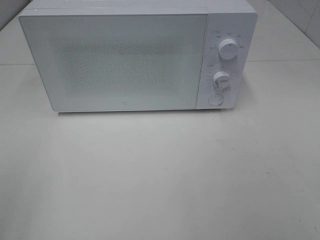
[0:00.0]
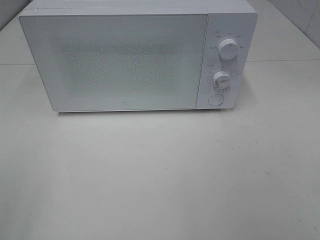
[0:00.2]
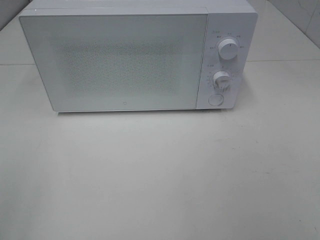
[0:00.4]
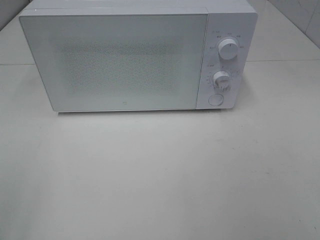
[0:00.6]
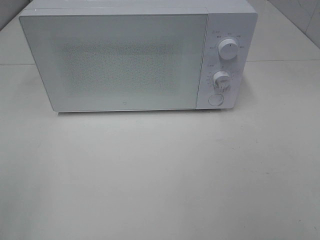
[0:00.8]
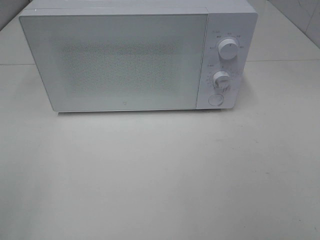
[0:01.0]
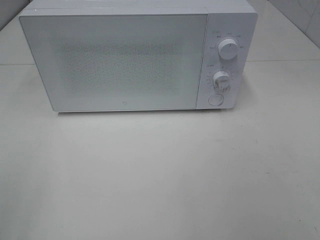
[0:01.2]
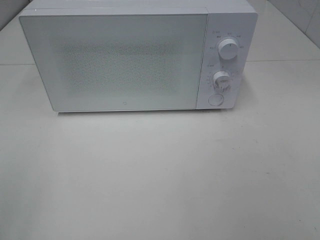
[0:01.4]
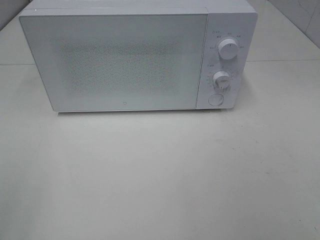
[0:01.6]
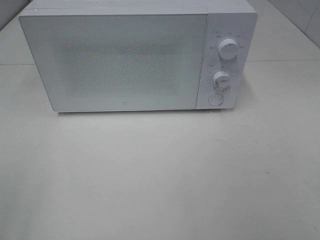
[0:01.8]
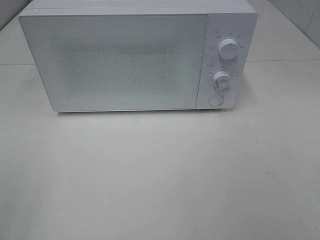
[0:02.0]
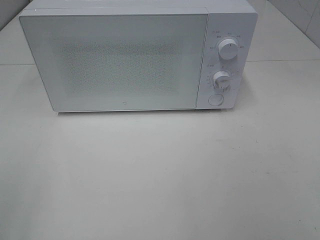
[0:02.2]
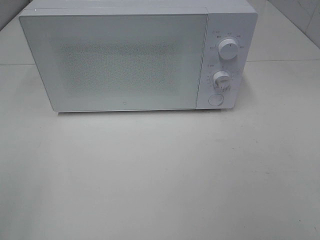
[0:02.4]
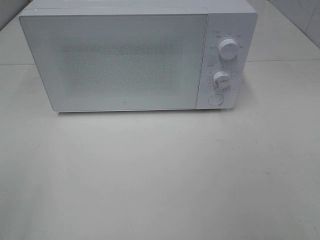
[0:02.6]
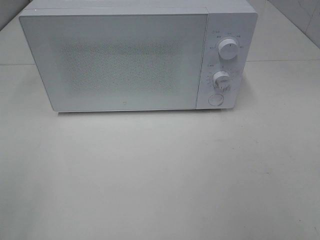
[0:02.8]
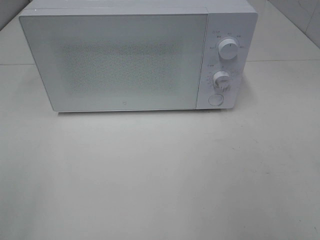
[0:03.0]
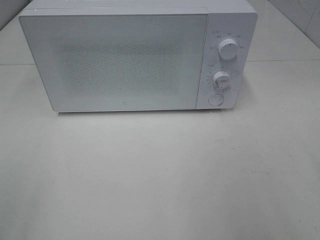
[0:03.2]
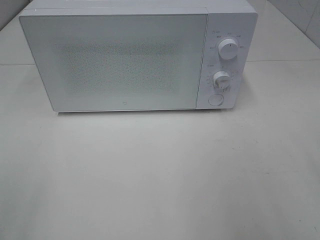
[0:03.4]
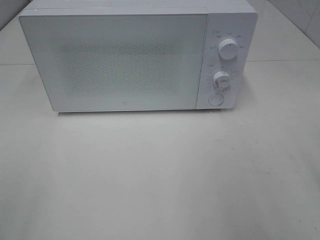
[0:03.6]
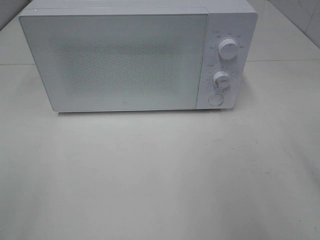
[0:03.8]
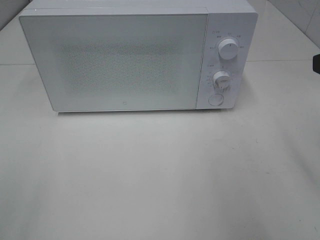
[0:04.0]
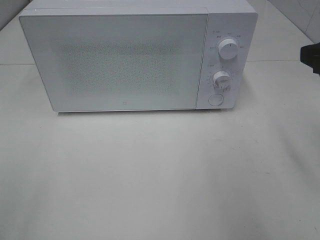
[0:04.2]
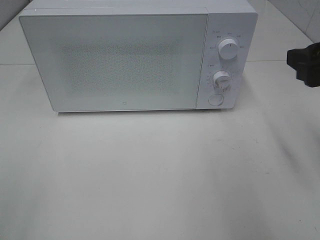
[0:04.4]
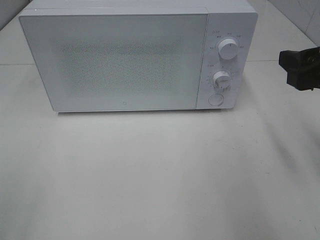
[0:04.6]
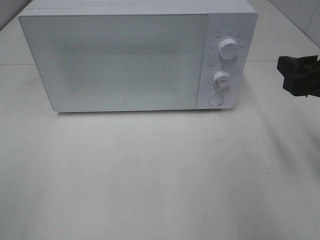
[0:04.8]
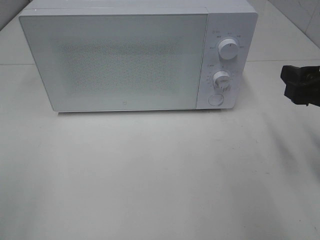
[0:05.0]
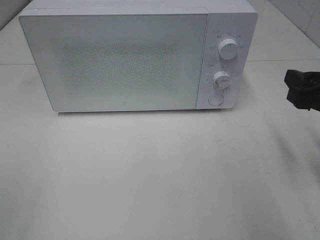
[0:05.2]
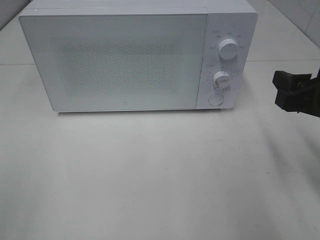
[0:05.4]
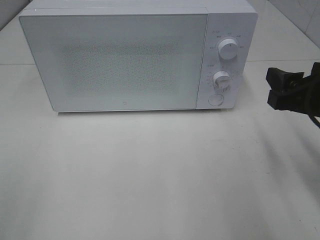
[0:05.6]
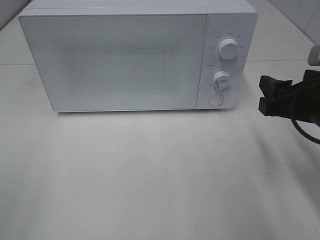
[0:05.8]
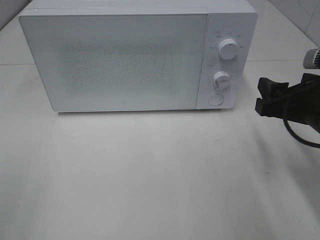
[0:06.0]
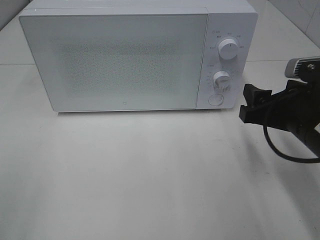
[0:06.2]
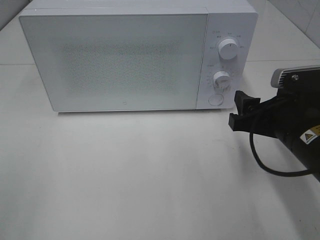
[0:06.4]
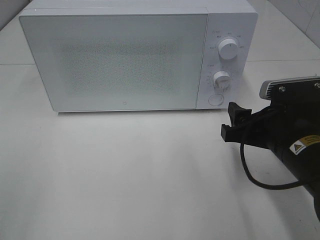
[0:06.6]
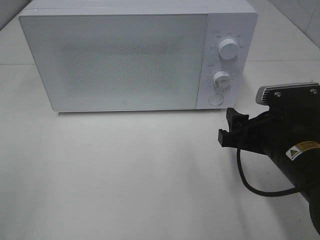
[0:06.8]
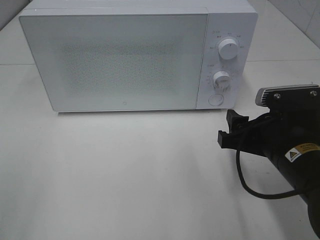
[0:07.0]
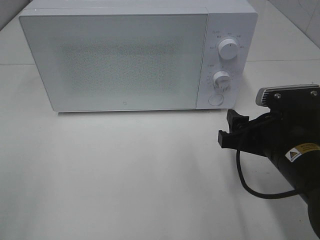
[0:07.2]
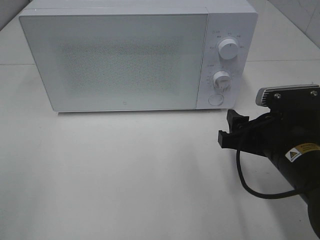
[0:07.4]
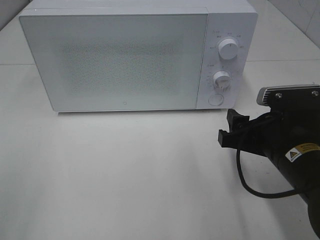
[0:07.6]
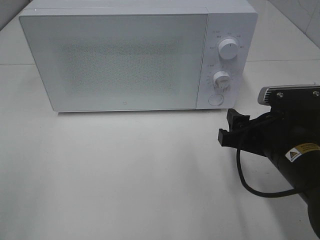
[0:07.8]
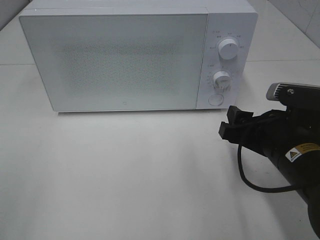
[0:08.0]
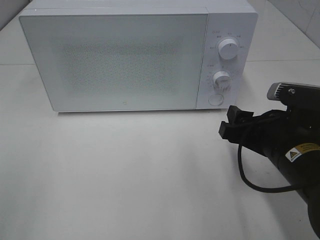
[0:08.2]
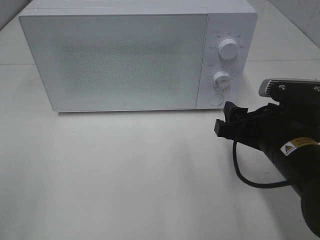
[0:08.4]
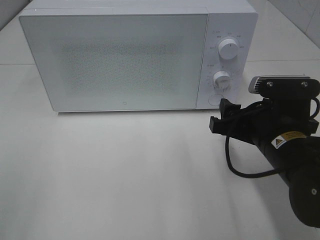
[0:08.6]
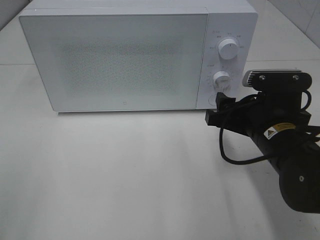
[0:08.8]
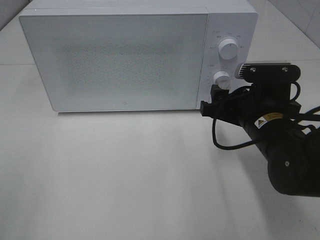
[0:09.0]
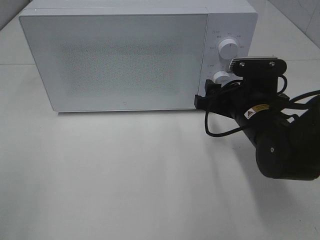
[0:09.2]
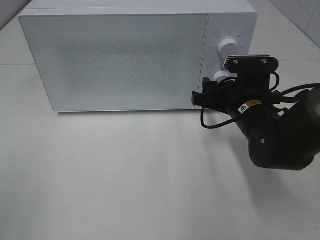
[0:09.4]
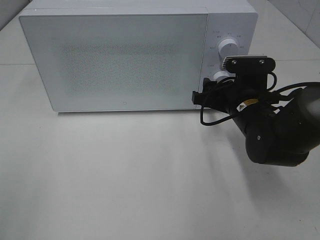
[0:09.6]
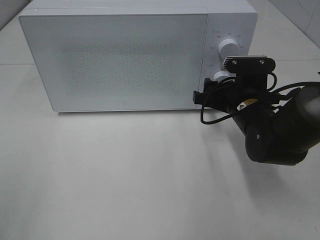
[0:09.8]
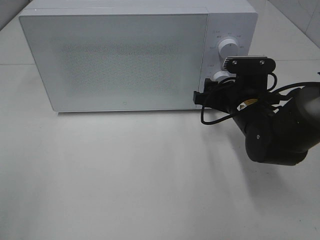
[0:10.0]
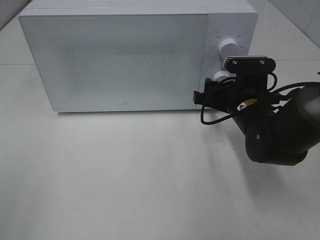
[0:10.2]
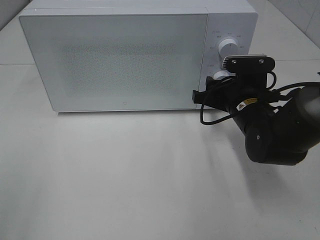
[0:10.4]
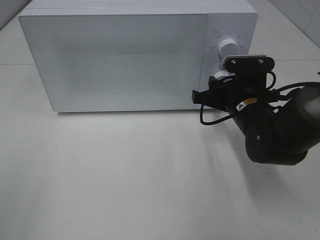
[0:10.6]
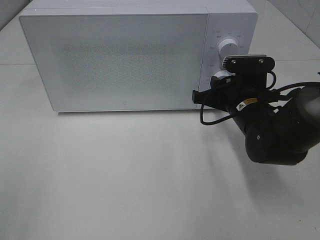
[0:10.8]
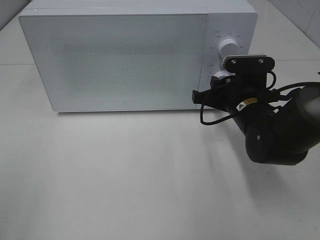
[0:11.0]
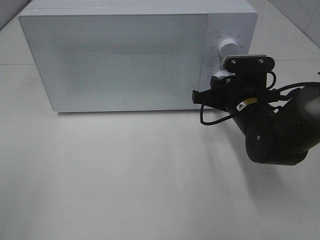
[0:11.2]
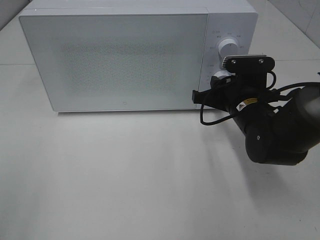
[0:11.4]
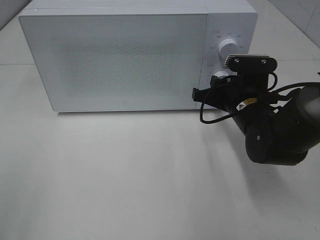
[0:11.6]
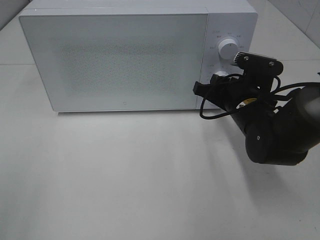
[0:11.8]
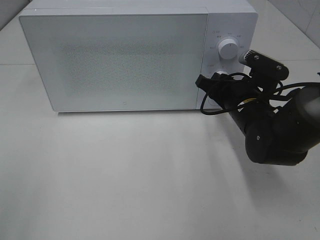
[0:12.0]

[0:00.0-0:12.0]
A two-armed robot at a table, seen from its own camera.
Task of the whole recording: Heat Sandwich.
0:03.0 to 0:04.4: The right gripper travels forward by roughly 15 cm.
0:04.4 to 0:06.0: The right gripper is displaced downward by about 10 cm.
0:06.0 to 0:07.6: The right gripper shifts about 5 cm to the left.
0:07.6 to 0:09.0: The right gripper moves forward, roughly 5 cm.
0:09.0 to 0:10.4: The right gripper heads forward, covering approximately 5 cm.

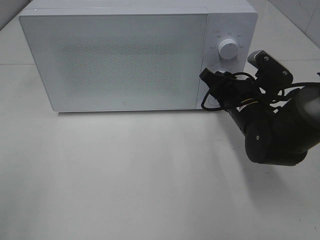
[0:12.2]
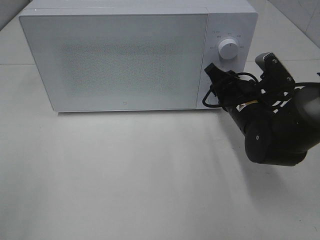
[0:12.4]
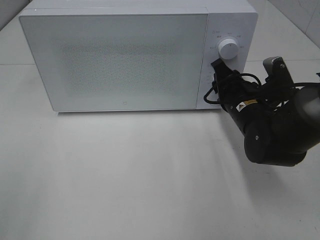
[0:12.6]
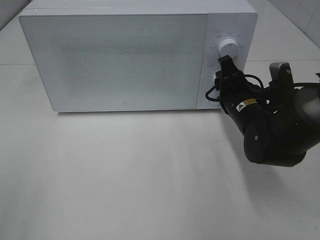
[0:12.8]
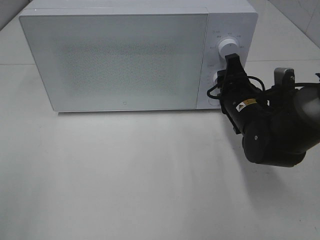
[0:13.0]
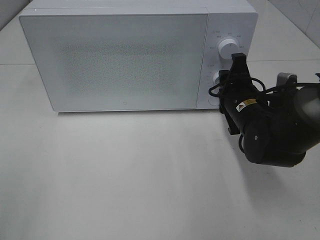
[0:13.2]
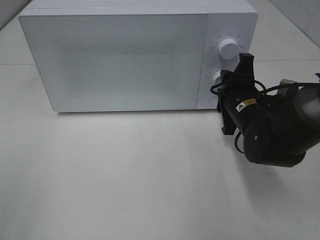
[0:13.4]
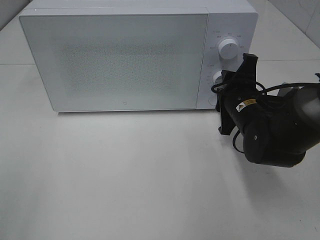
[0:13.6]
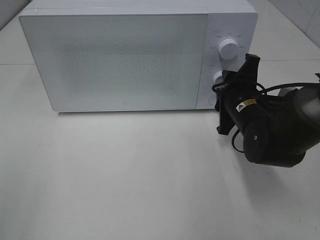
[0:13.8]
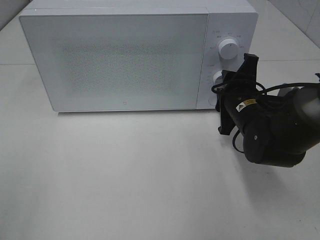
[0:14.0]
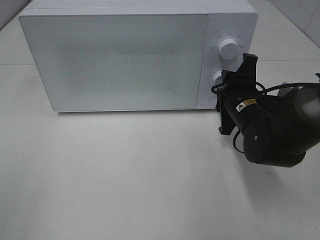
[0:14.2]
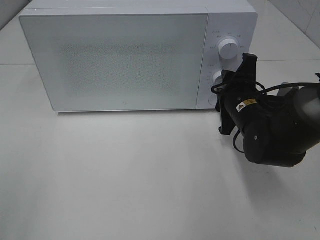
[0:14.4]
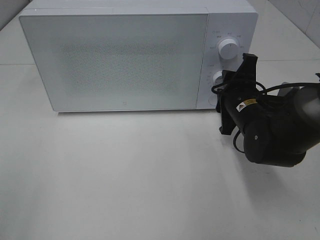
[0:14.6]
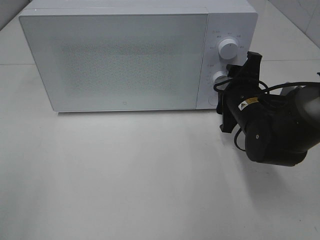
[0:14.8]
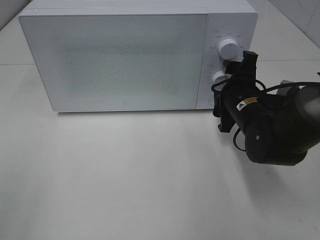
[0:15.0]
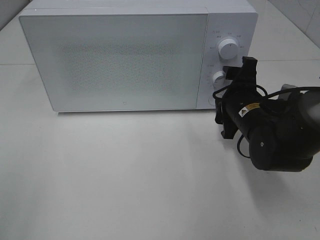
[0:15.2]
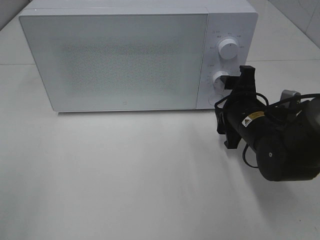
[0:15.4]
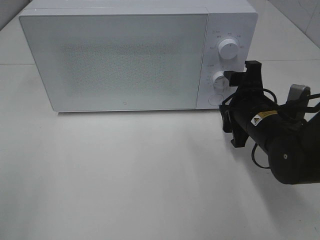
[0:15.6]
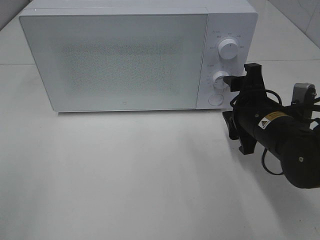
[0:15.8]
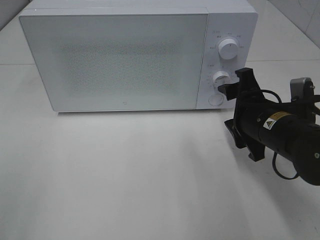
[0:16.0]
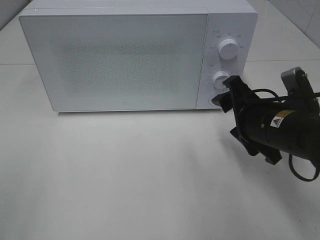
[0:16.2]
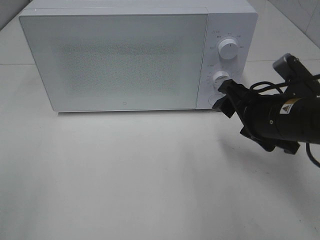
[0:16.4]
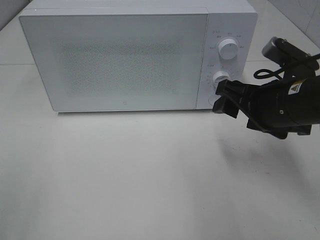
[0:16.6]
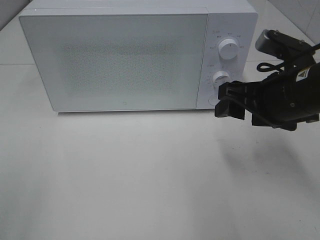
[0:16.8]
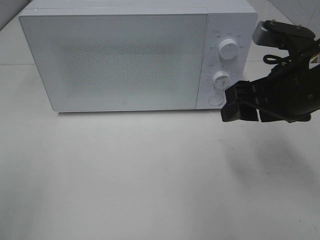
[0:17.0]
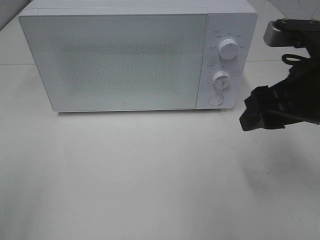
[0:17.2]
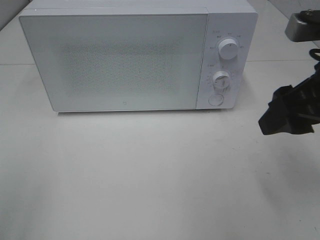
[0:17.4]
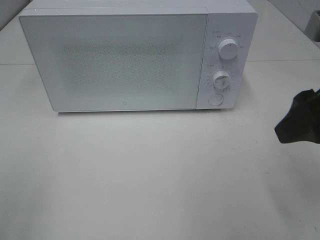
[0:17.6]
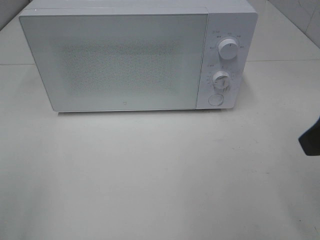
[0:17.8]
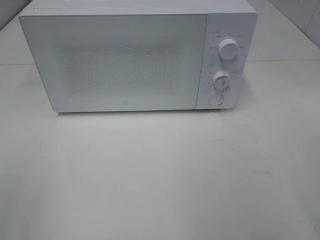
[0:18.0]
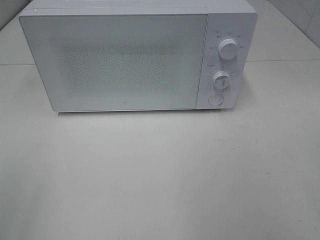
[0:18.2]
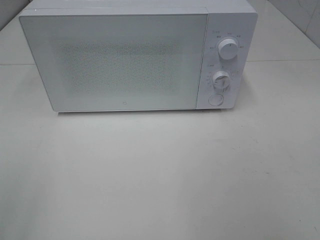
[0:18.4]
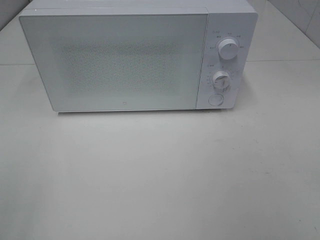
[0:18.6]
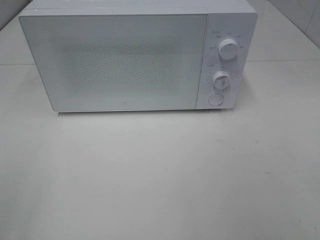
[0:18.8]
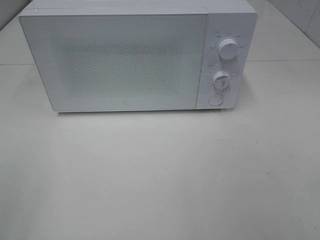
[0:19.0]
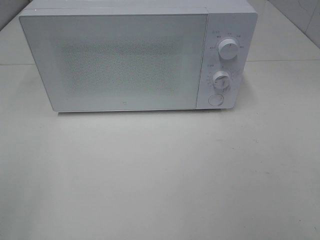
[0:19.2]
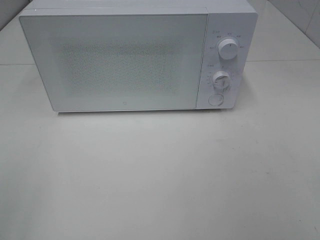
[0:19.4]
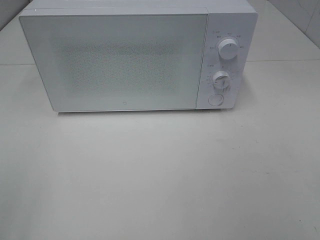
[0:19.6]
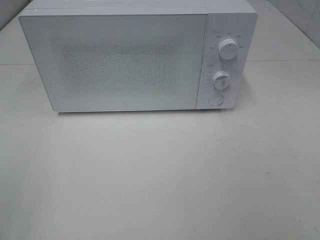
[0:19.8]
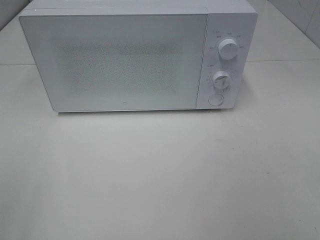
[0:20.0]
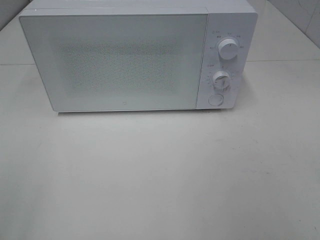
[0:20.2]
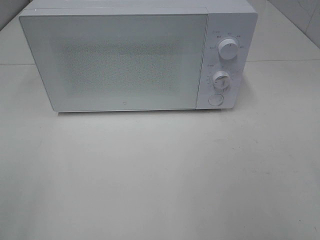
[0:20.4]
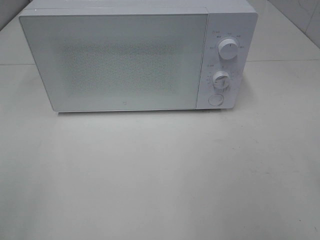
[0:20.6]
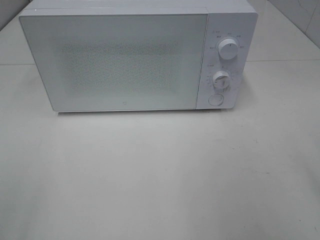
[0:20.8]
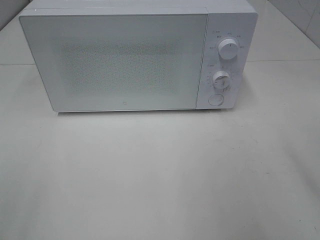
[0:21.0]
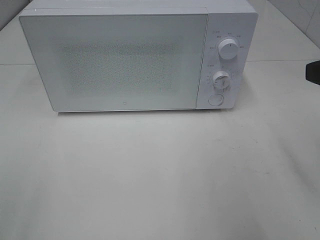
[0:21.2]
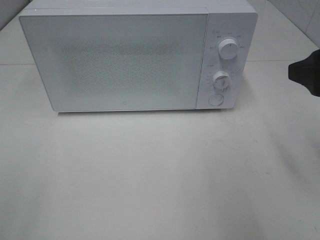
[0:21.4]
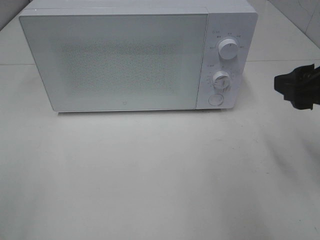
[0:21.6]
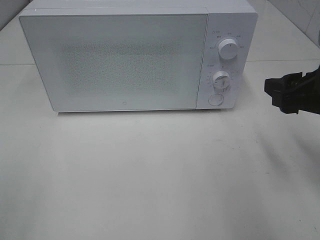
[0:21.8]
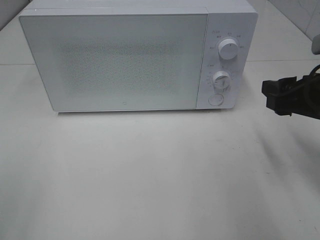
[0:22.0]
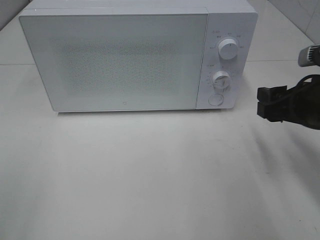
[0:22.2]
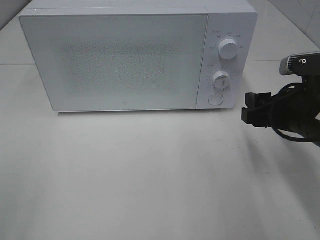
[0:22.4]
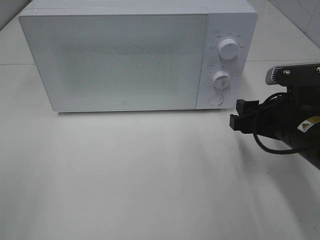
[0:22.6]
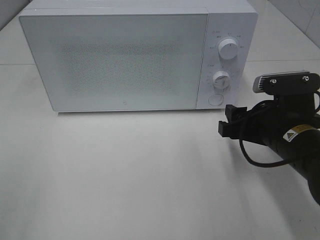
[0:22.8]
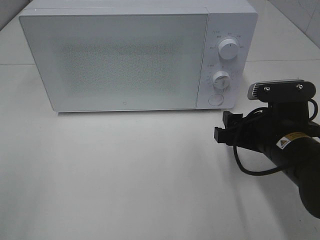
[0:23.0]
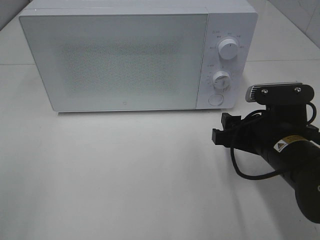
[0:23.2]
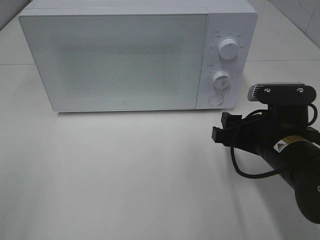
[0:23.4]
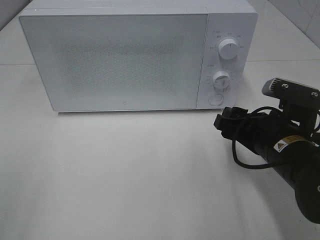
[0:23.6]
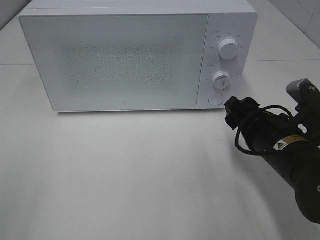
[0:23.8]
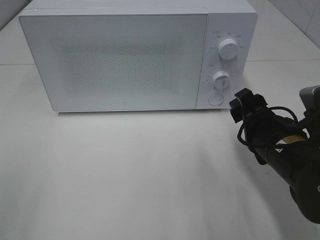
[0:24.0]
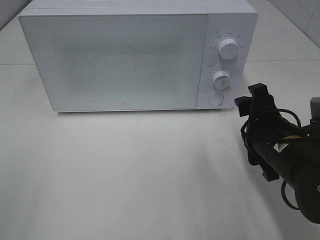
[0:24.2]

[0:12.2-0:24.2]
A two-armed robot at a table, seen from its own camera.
Task of the whole recording: Heat Sandwich.
Step, 0:12.2 to 0:15.2: Right hand: twist timer button.
0:13.8 to 0:15.2: The right gripper opens its fingers.
0:15.2 to 0:16.6: The right gripper heads upward and backward, covering approximately 10 cm.
0:16.6 to 0:18.2: The right gripper heads backward, upward and to the right, covering some 25 cm.
0:21.2 to 0:22.6: The right gripper heads downward, covering roughly 15 cm.
